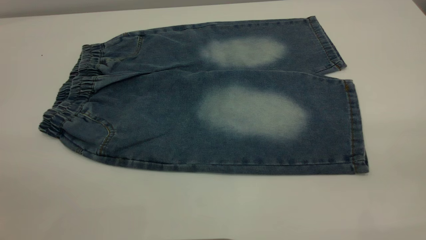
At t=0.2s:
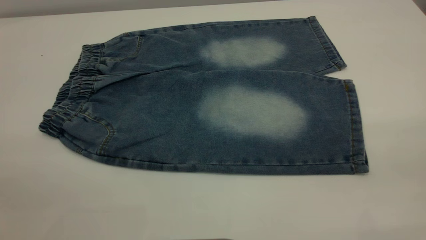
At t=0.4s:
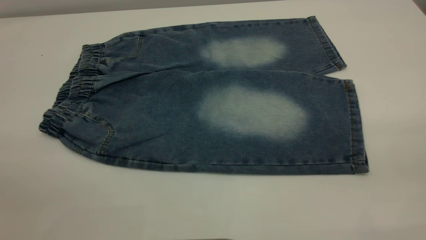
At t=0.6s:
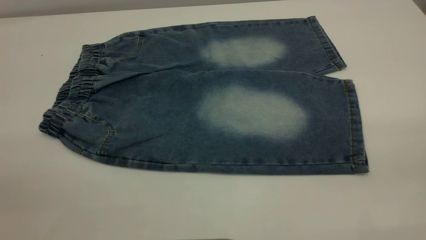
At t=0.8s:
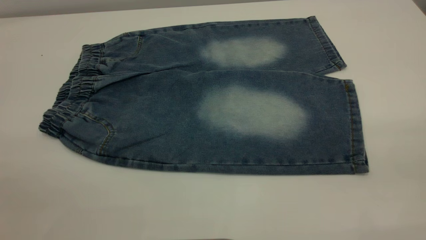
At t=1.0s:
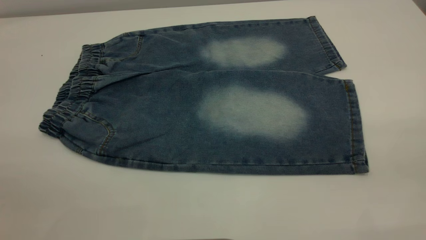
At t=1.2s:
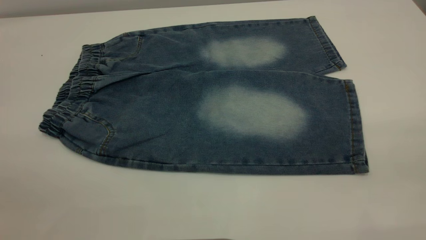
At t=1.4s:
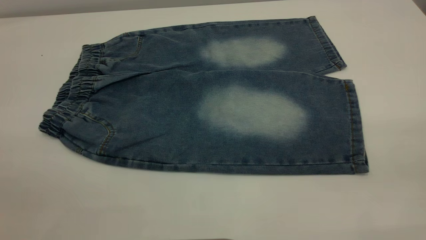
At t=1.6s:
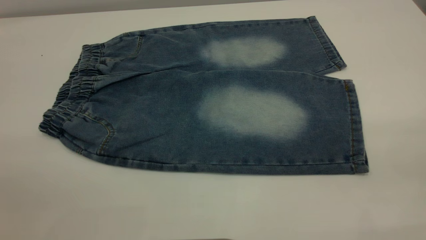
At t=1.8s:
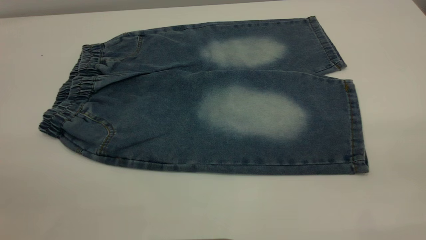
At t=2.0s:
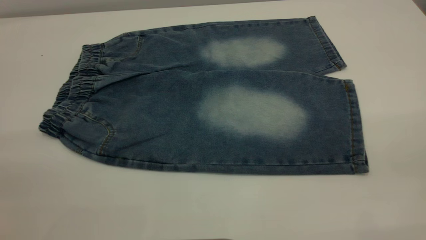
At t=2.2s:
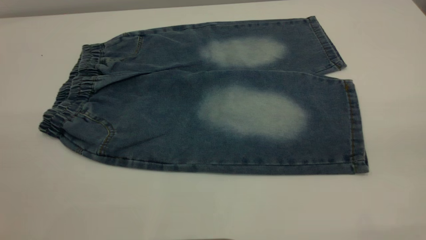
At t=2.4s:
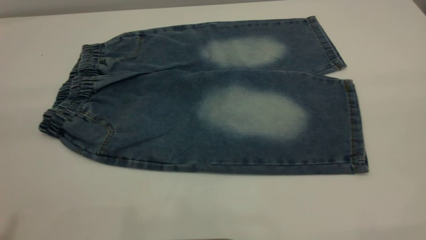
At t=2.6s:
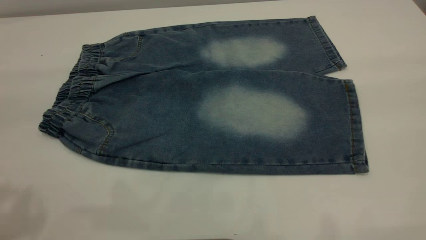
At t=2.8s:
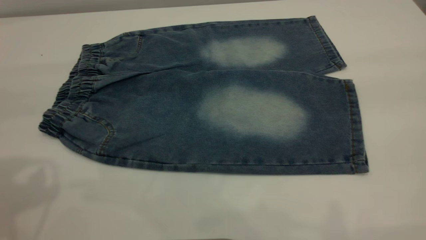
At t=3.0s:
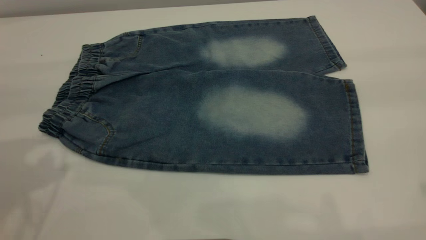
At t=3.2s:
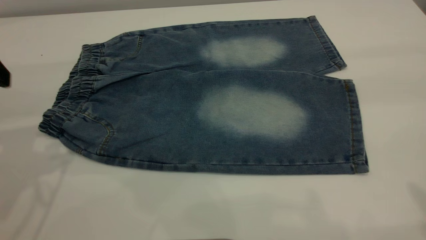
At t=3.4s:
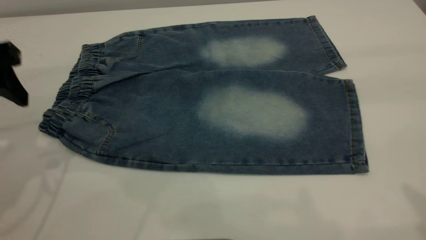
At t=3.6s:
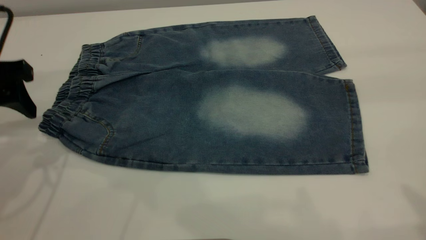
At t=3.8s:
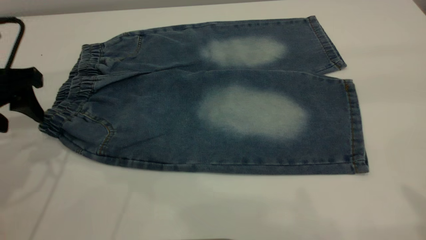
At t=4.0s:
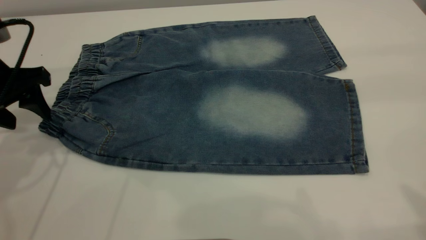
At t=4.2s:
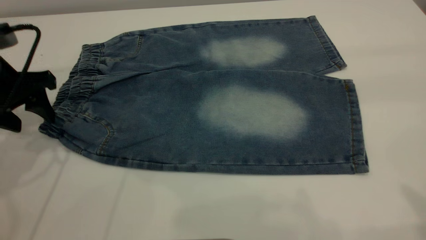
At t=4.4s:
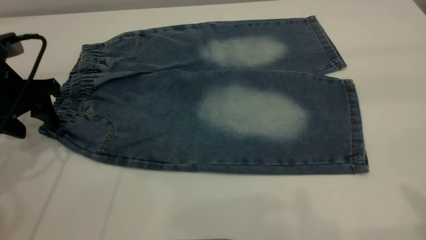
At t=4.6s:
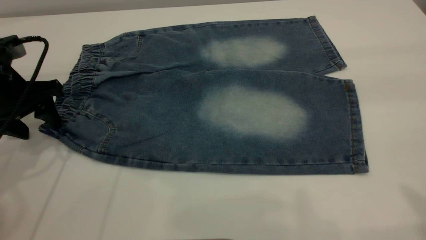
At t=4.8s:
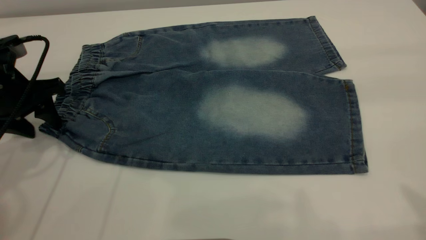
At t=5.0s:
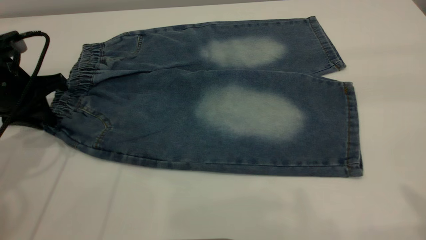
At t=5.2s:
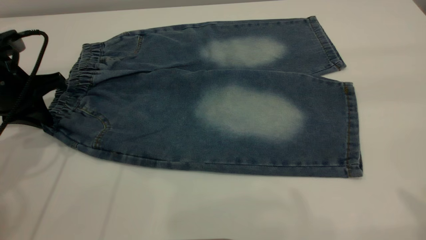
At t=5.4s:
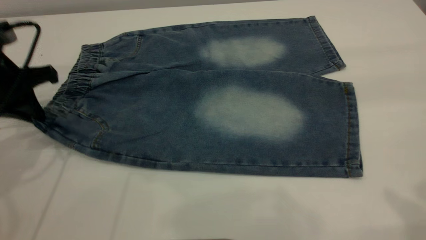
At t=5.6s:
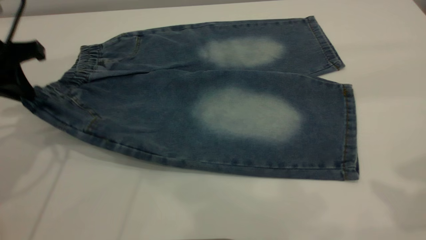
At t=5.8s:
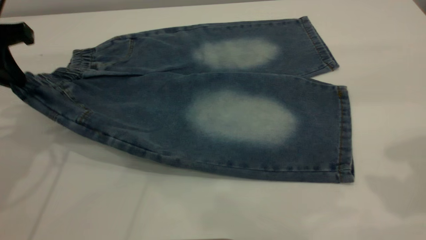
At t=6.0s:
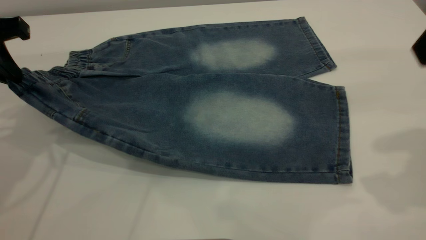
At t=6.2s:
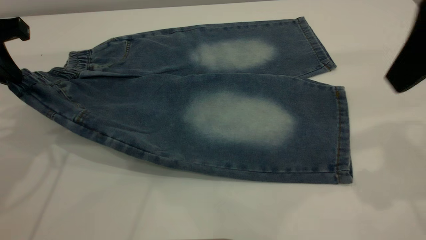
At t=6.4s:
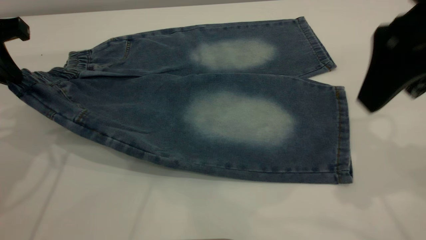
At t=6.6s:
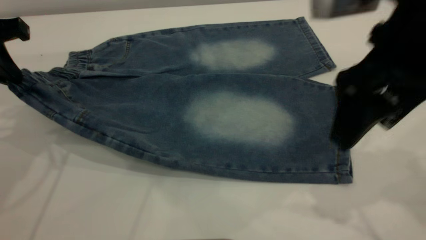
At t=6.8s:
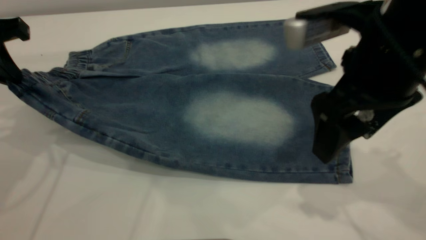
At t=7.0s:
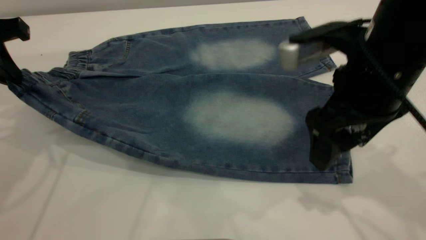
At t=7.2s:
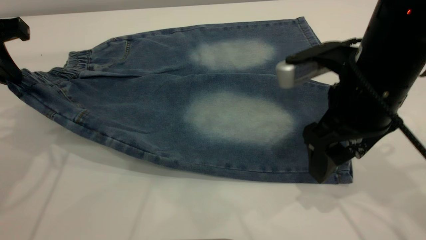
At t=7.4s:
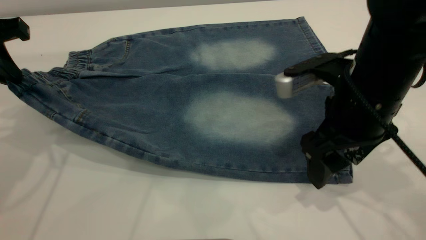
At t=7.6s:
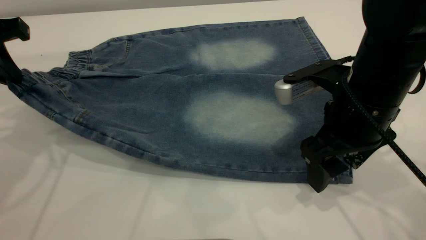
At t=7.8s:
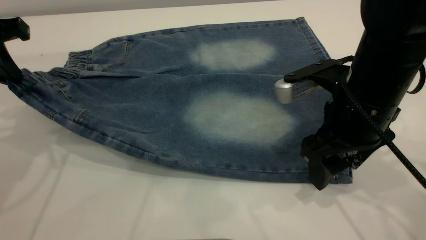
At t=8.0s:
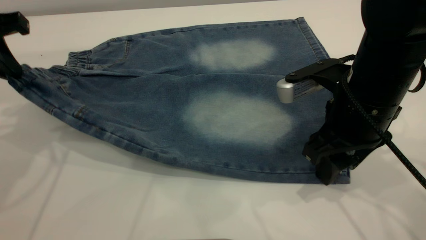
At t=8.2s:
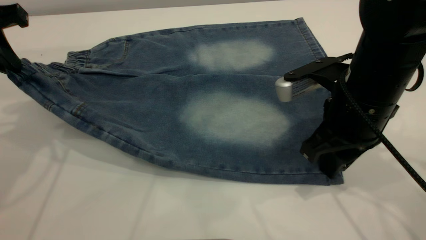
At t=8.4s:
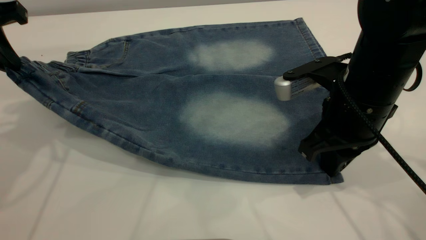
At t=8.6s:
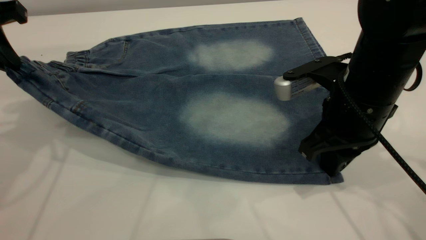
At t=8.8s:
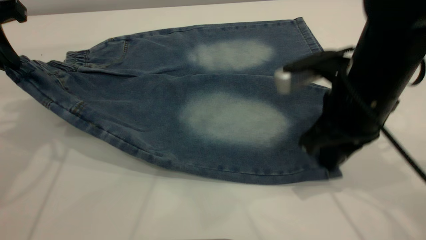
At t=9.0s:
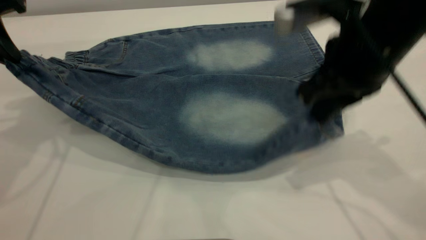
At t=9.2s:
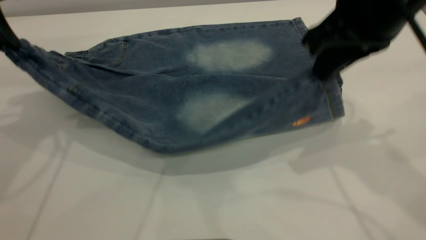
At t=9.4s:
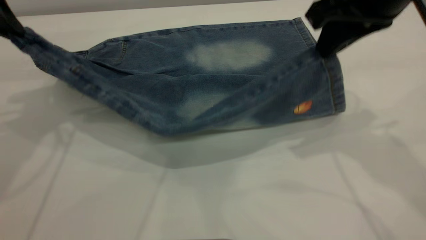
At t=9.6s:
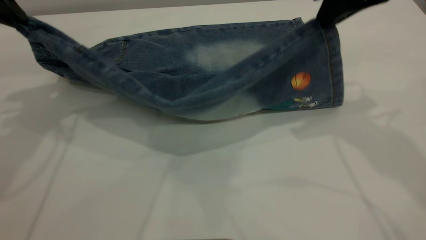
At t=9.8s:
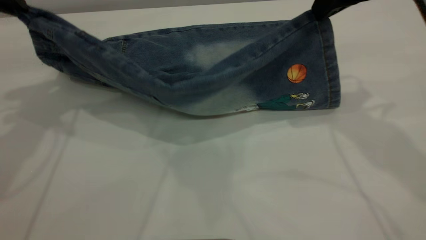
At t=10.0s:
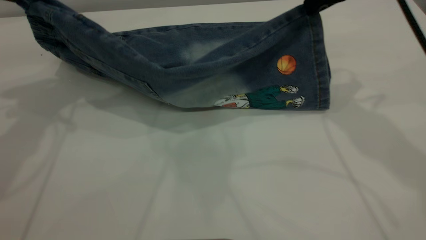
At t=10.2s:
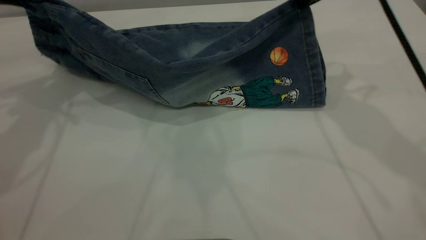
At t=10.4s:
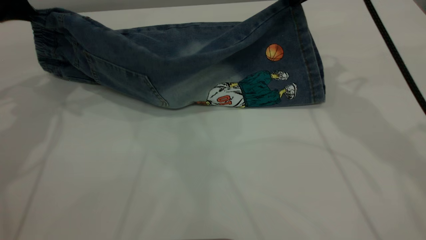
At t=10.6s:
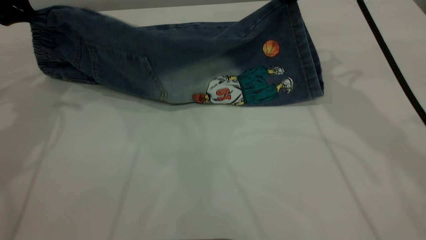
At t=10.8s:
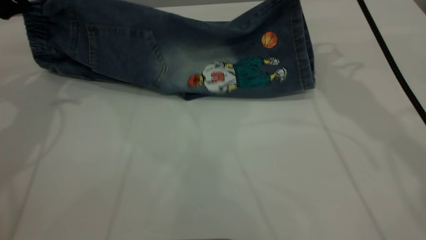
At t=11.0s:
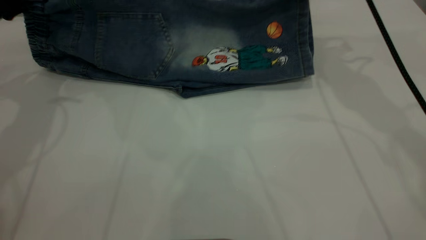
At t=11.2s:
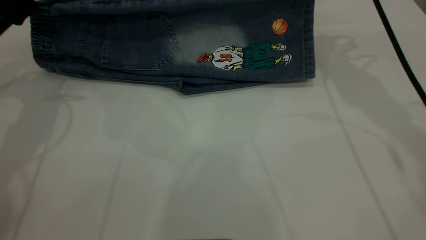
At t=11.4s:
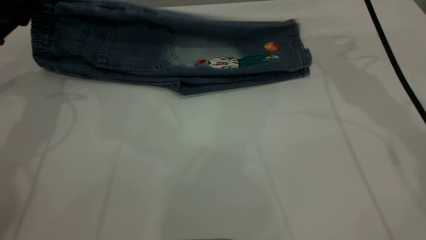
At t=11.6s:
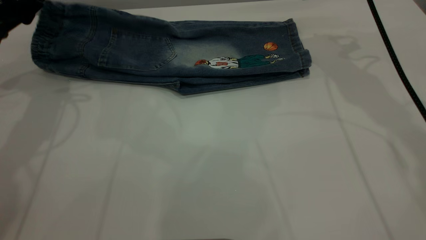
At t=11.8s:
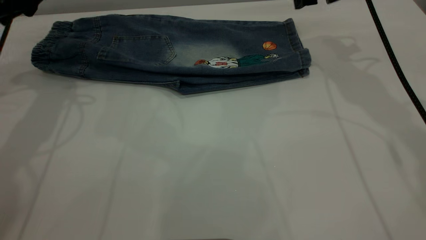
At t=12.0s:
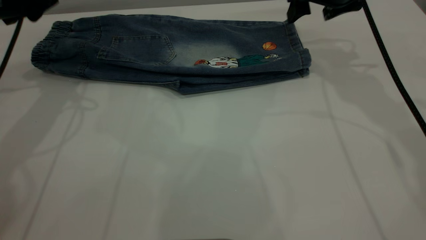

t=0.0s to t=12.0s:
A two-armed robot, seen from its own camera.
Step, t=0.0s to t=11.8s: Fold the bottom of the pants upward.
t=0.0s to t=1.6s: The two grippers keep their place.
t=3.0s to t=4.4s: The left gripper is displaced downward and forward by some 15 cm.
t=4.4s to t=6.0s: The right gripper travels downward and forward by about 10 cm. The left gripper moves upward, roughly 10 cm, and closes up.
t=6.0s to t=7.6s: The right gripper moves downward and to the left, approximately 20 cm.
t=7.6s to t=9.0s: The right gripper travels upward by roughly 10 cm, and closes.
t=9.0s to t=10.4s: The right gripper travels forward by about 15 cm; the left gripper heads forward, covering about 5 cm.
t=10.4s to t=12.0s: The left gripper moves approximately 5 cm, and opens. Meanwhile the right gripper shifts by roughly 10 cm, and opens up.

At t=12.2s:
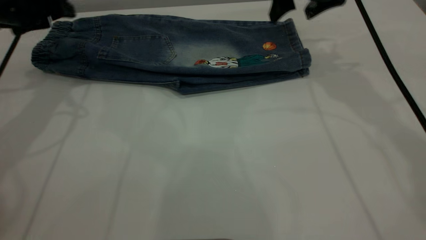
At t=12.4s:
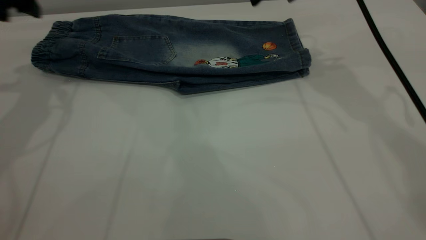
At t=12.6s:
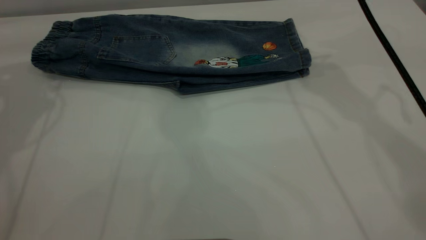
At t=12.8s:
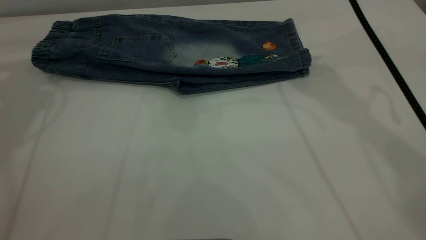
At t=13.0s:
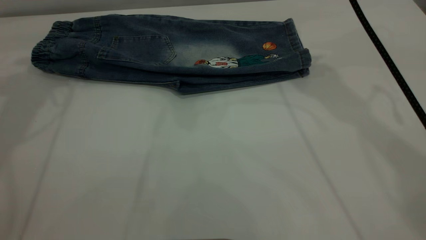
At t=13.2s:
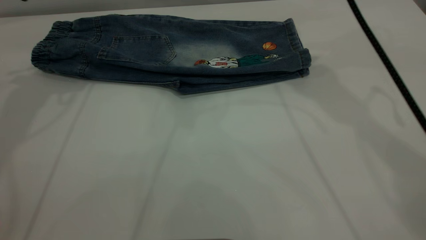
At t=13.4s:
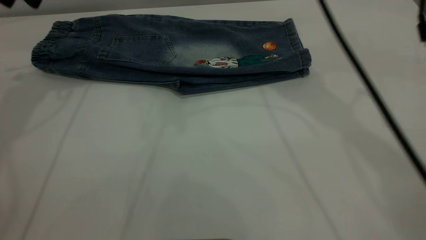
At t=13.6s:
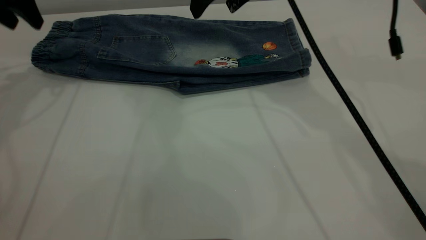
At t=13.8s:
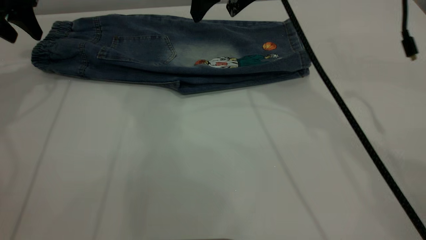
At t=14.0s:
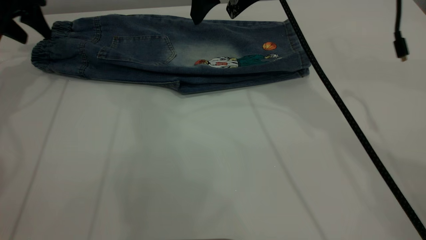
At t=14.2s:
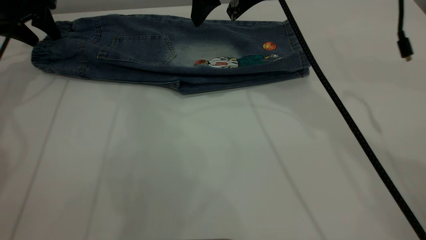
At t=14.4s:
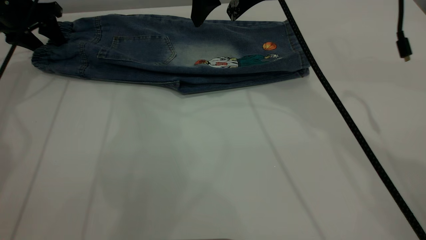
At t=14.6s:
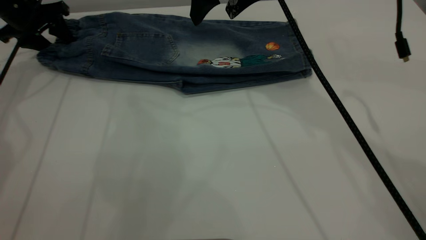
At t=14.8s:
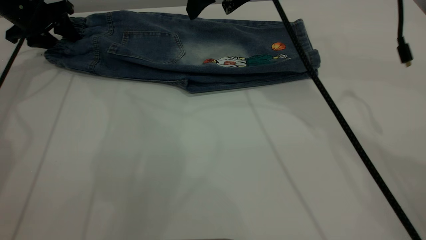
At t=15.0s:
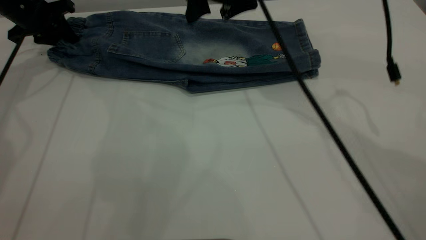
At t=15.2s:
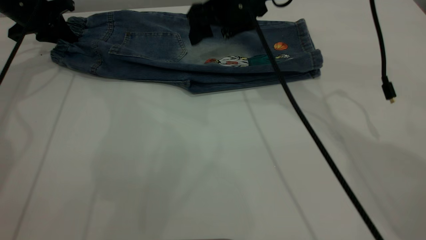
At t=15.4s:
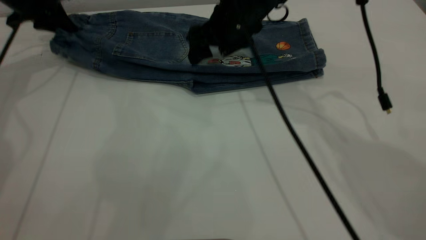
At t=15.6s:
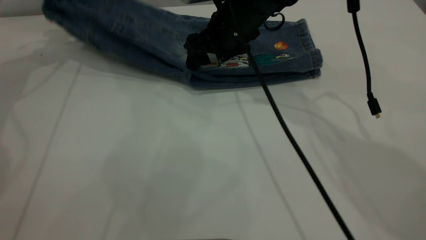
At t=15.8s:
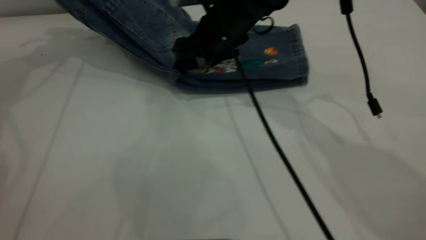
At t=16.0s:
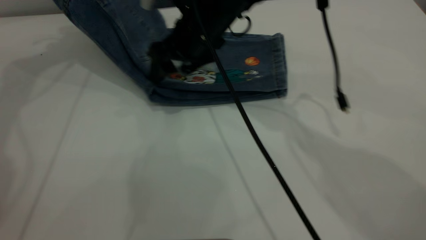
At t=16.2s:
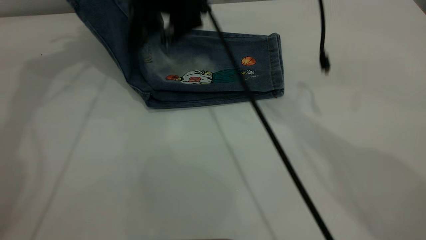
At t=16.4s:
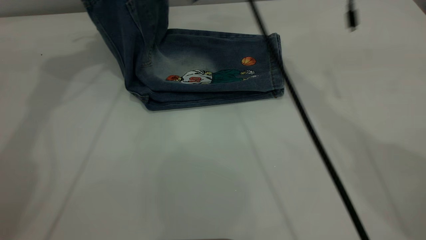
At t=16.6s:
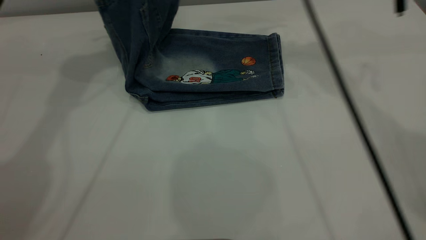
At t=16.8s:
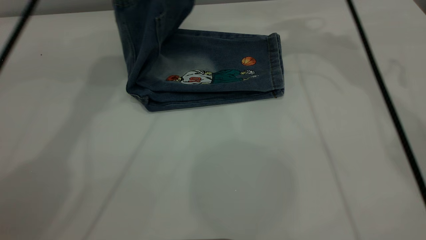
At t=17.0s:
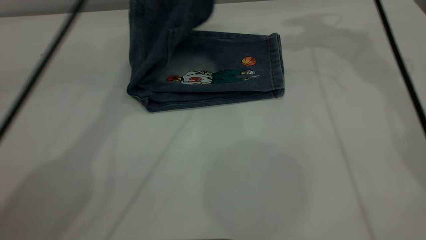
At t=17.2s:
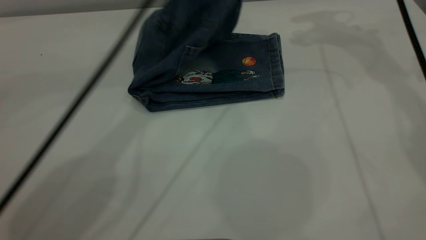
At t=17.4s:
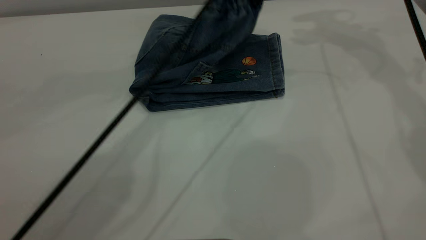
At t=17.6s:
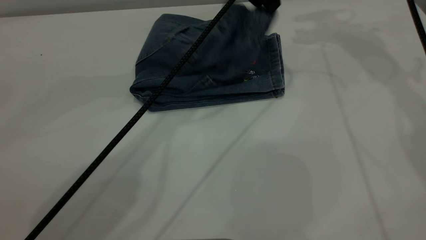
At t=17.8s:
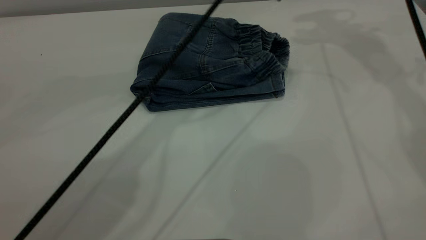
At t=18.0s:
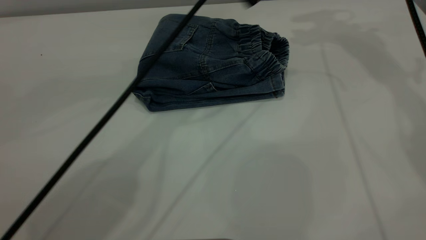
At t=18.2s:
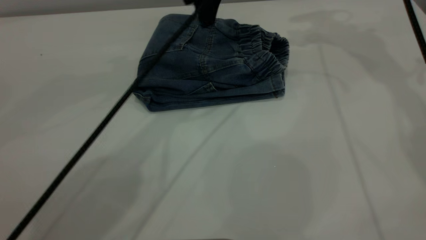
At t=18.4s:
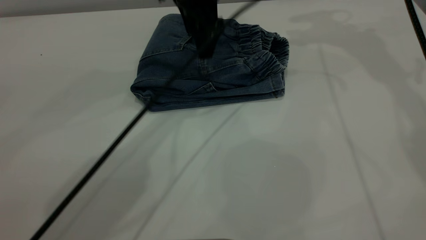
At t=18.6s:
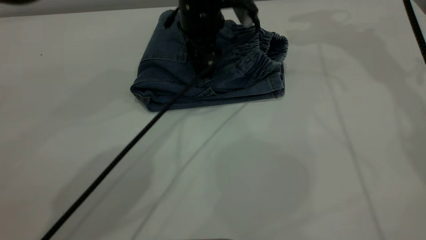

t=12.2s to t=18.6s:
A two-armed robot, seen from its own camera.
Step, t=12.2s to t=17.8s: Fold the pants from left to right.
t=12.2s to t=13.8s: The left gripper is displaced to the left and forward by some 10 cm, and travels upward and back again, approximately 10 cm each way. The right gripper travels to the left by about 10 cm.
t=13.8s to t=15.4s: The right gripper is displaced downward by about 10 cm. Meanwhile the left gripper shifts some 5 cm forward, and closes its fingers.
t=15.4s to t=17.0s: The right gripper goes approximately 25 cm upward and to the right, while the left gripper heads to the right and upward, covering about 30 cm.
t=17.0s to t=18.6s: The left gripper travels downward by about 20 cm, and opens up.
